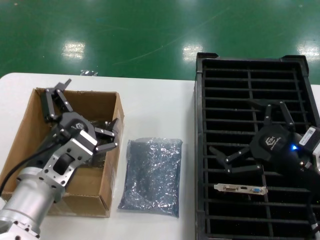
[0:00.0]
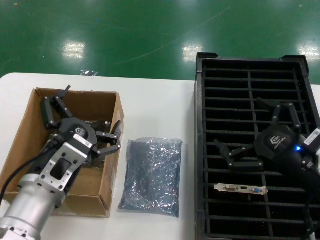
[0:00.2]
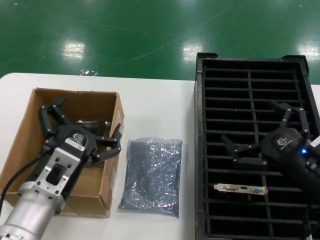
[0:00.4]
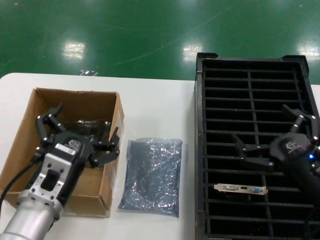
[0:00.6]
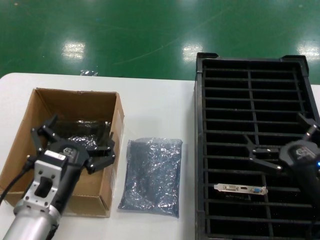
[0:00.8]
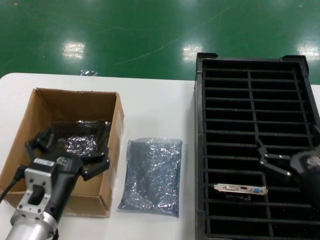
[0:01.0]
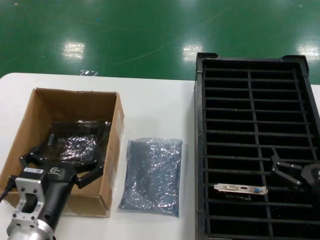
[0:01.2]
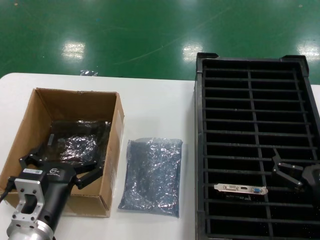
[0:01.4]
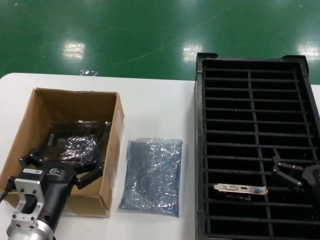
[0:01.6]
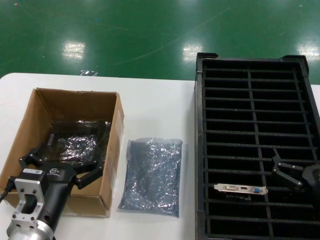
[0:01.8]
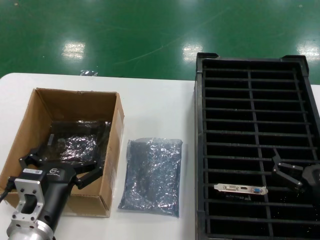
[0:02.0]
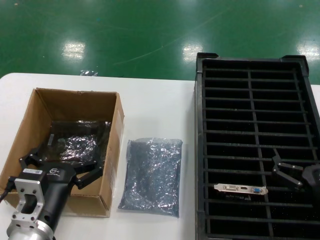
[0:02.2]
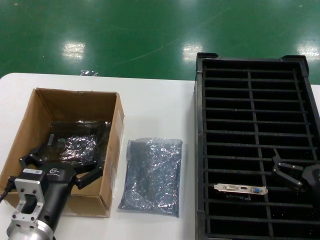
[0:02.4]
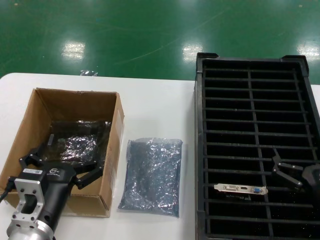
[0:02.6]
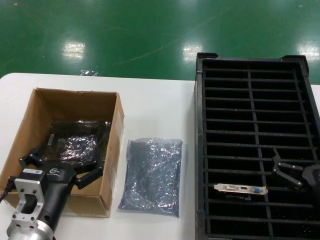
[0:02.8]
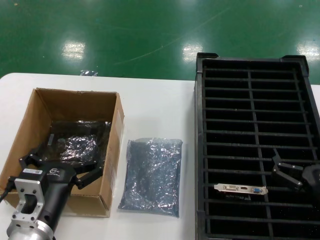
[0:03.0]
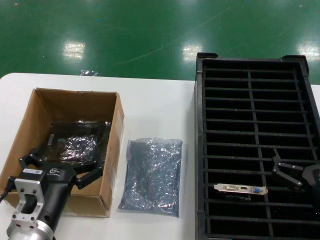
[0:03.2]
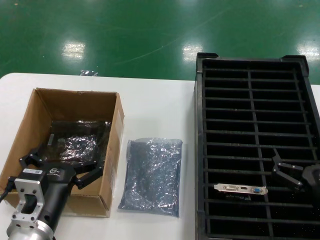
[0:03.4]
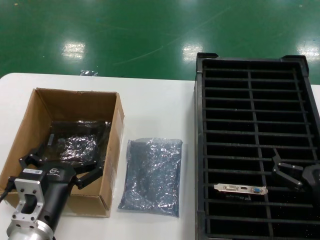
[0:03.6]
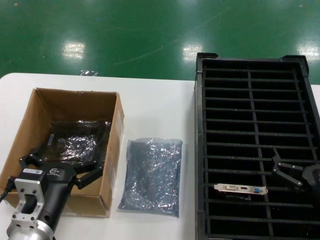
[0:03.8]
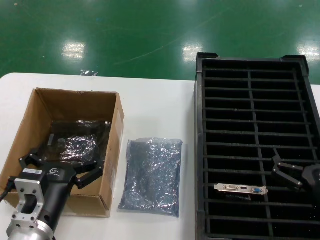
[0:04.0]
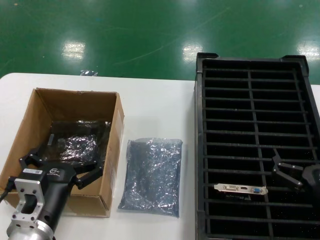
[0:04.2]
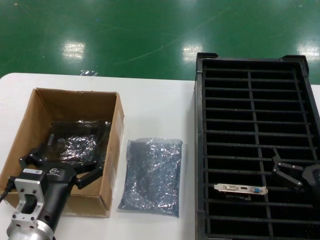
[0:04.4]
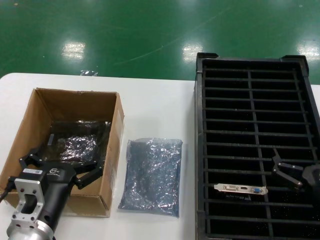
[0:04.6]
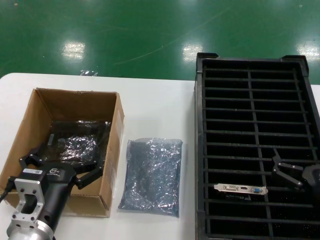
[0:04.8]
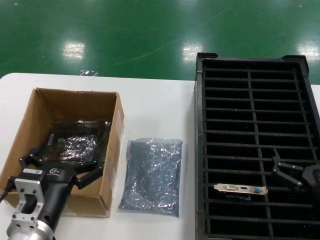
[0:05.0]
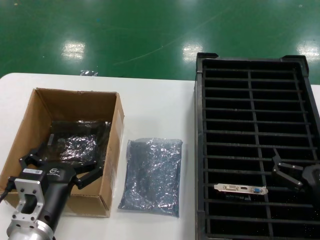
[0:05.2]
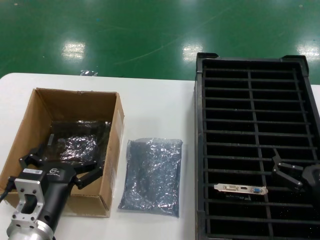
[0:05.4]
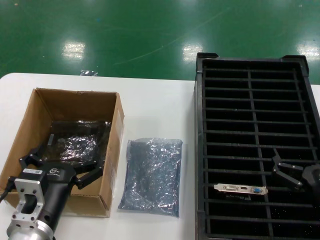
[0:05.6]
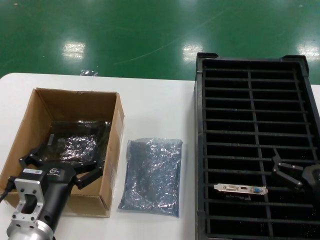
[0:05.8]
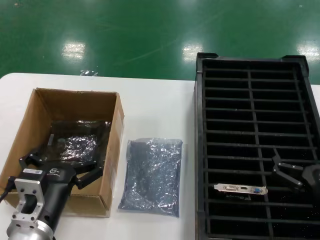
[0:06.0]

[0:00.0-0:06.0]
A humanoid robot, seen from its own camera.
Task of the whole recording: take out graphics card from box remove packaging put into black container.
0:00.0 to 0:01.6: The right hand shifts some 10 cm downward and backward, while the left hand is displaced downward by approximately 10 cm.
0:01.6 to 0:06.0: Both hands stay put.
